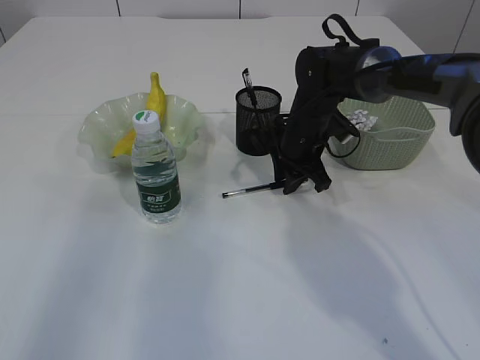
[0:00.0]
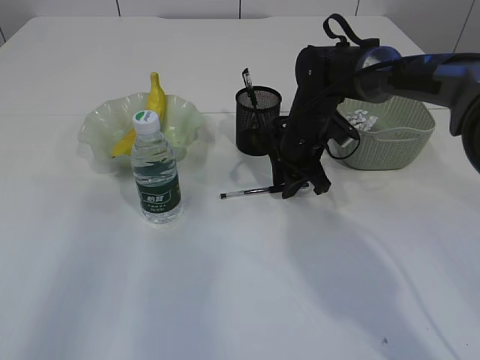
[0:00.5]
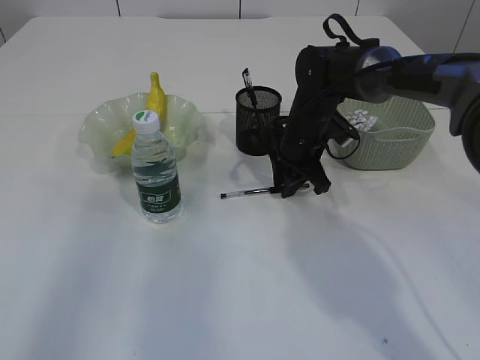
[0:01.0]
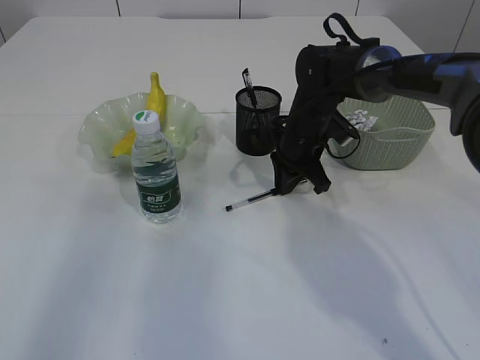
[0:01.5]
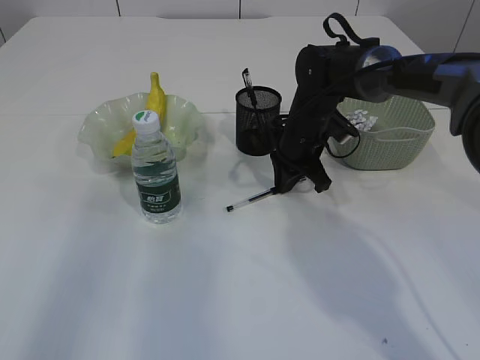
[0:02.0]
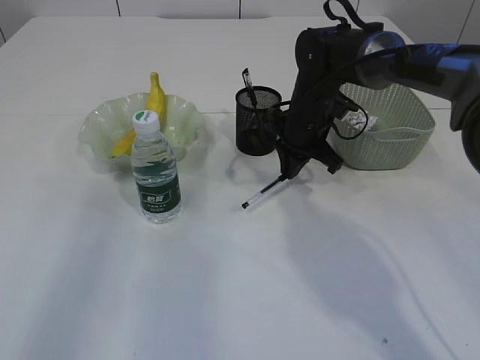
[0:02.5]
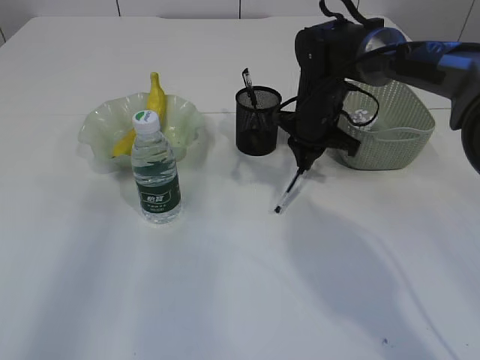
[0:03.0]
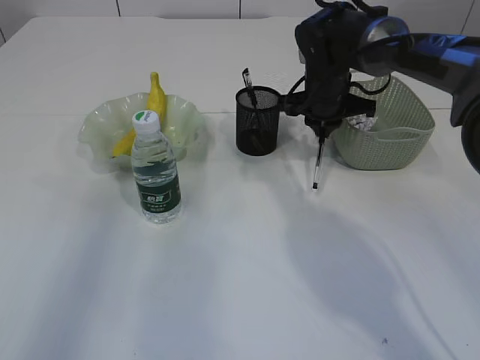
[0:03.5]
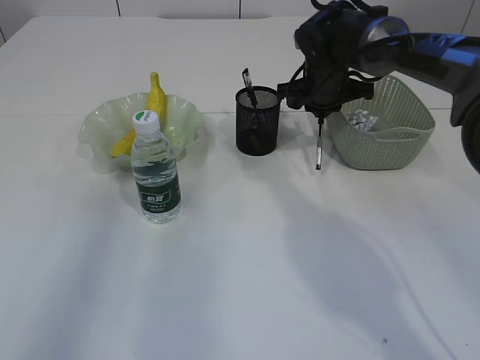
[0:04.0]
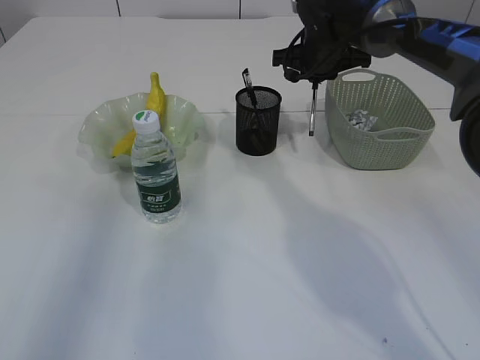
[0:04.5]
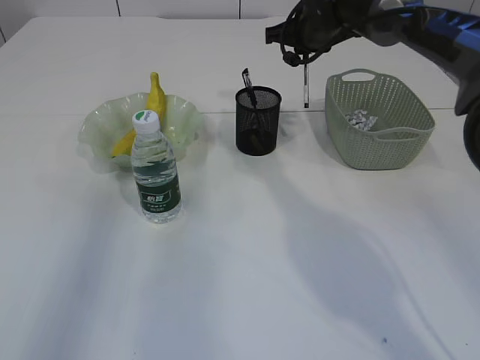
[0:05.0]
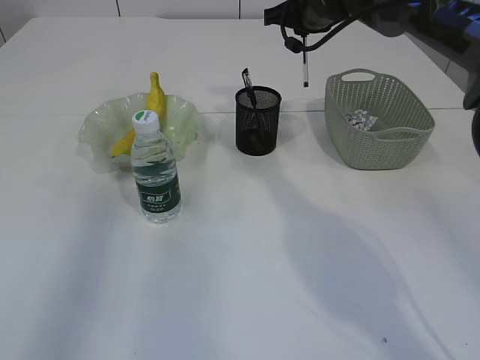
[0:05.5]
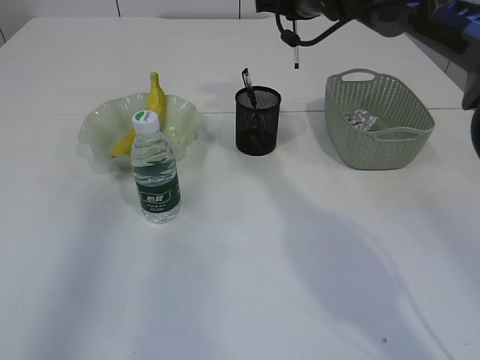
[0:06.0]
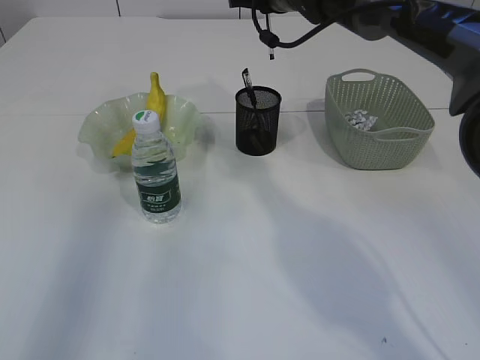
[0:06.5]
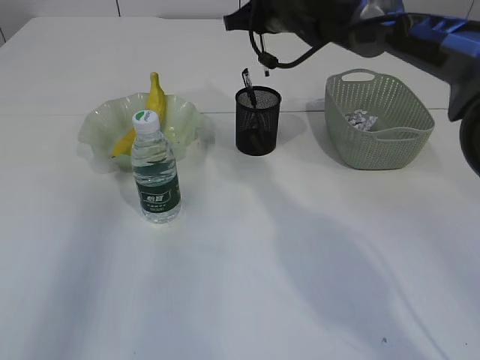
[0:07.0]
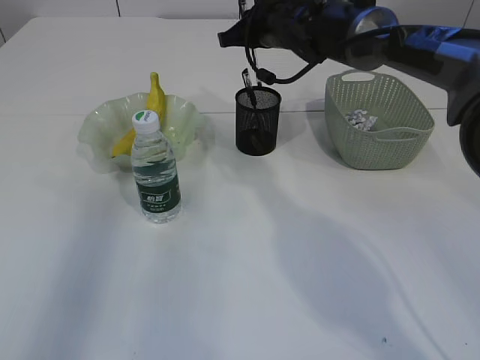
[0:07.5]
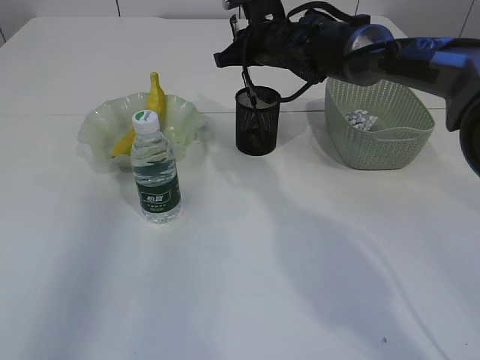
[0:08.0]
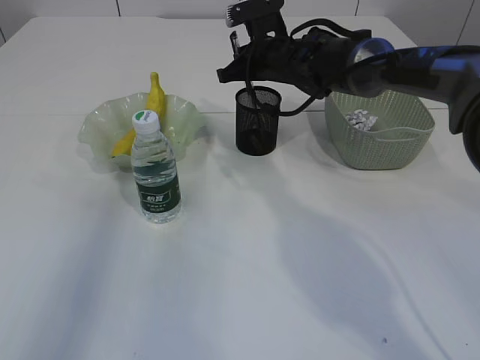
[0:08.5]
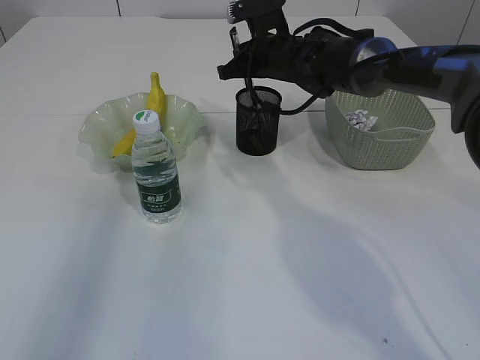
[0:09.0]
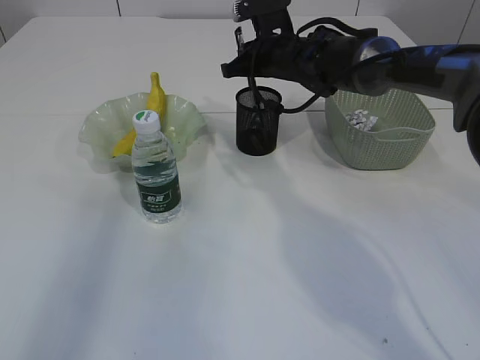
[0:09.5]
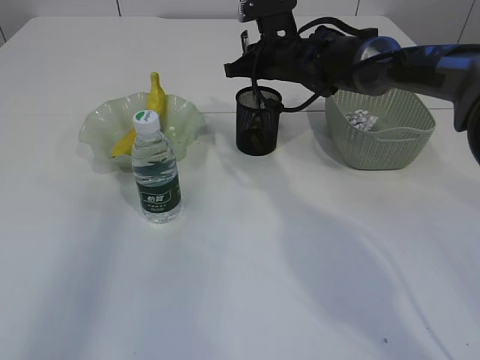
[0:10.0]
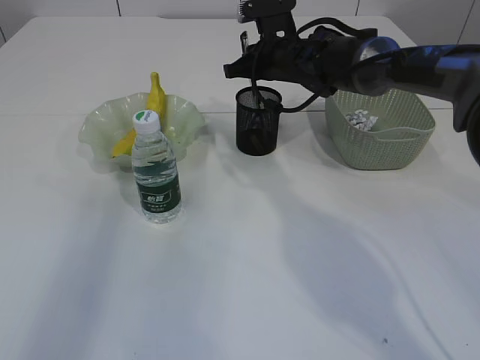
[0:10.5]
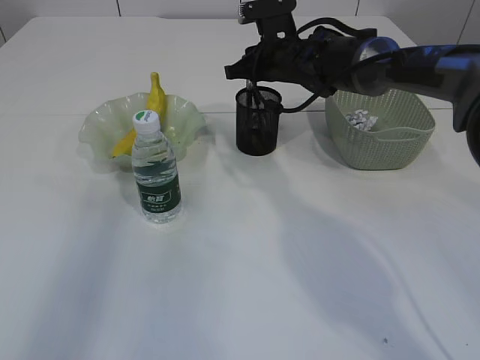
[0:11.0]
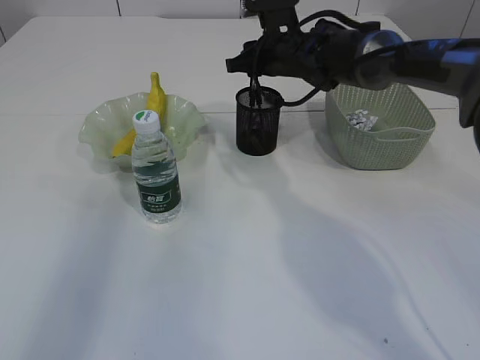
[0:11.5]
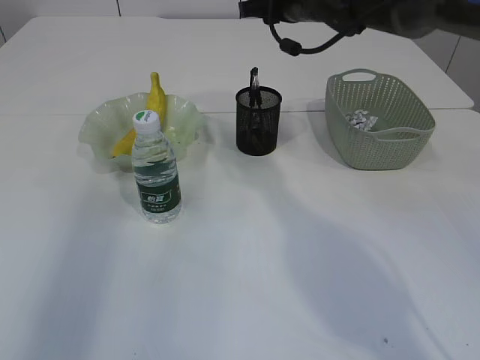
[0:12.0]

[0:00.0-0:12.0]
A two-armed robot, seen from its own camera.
Step, 0:00.0 to 0:04.0: Pick up the pen with right arm.
Step, 0:04.5 to 0:11.5: Place the pen into the pen holder.
0:00.0 to 0:02.0: Neither gripper changes place.
0:02.0 to 0:04.0: The right gripper moves upward, roughly 5 cm.
0:04.0 to 0:06.0: The right gripper shifts roughly 10 cm upward.
0:06.0 to 0:08.0: The right gripper travels downward and to the left by some 10 cm.
0:08.0 to 0:10.0: There are only small adjustments of the grippers.
0:10.0 to 0:12.0: The right gripper shifts some 10 cm upward, and opens its fingers.

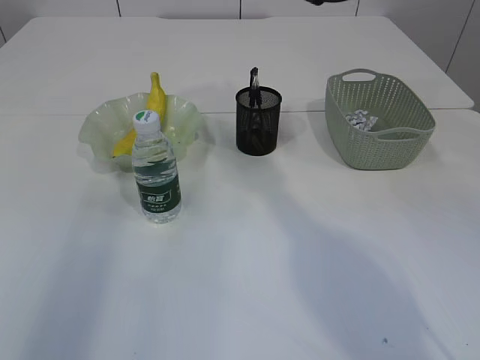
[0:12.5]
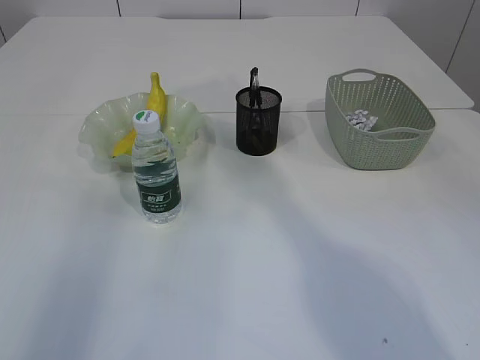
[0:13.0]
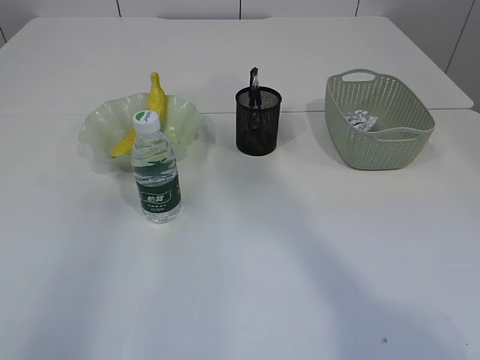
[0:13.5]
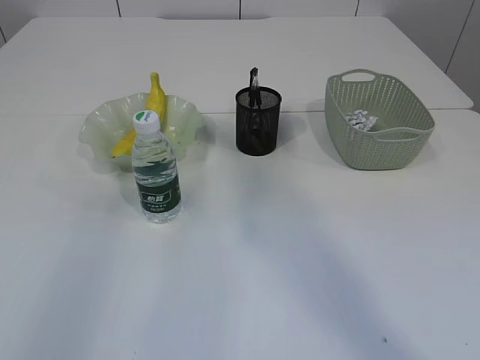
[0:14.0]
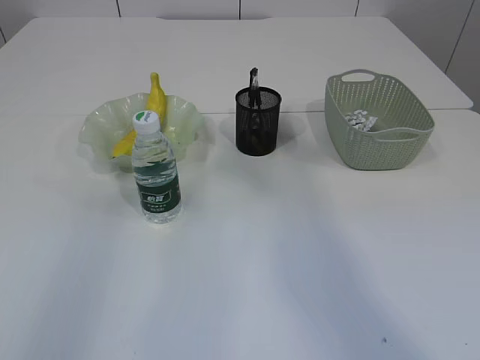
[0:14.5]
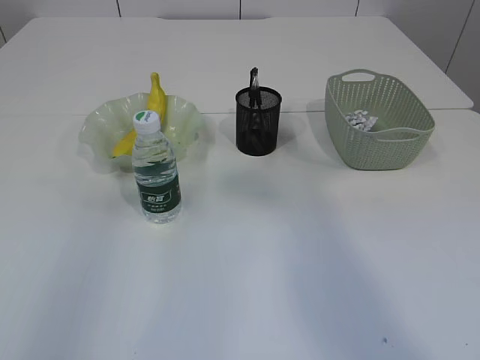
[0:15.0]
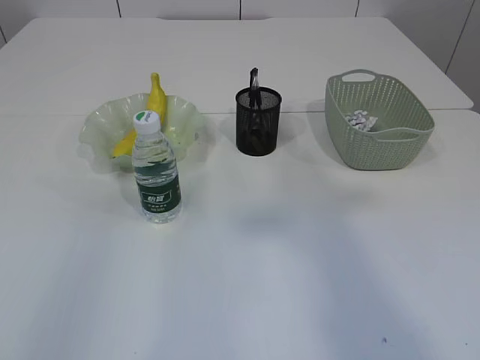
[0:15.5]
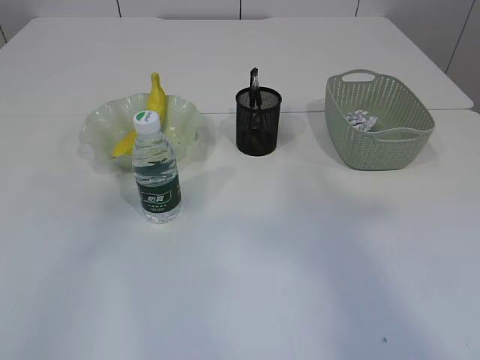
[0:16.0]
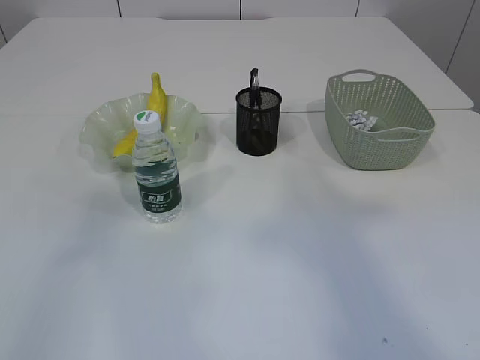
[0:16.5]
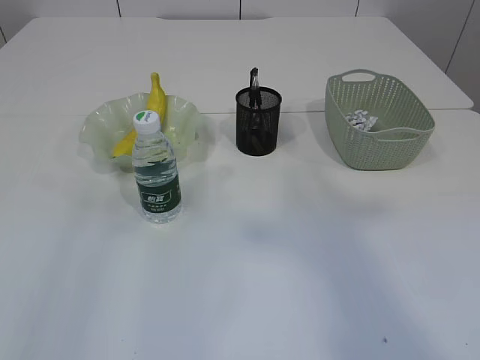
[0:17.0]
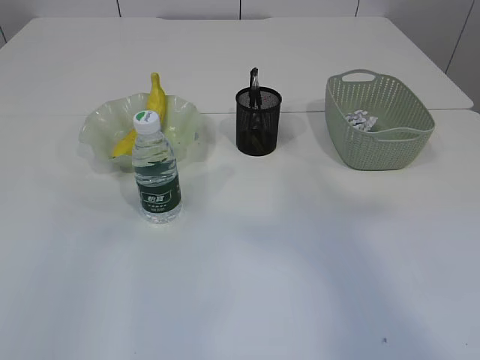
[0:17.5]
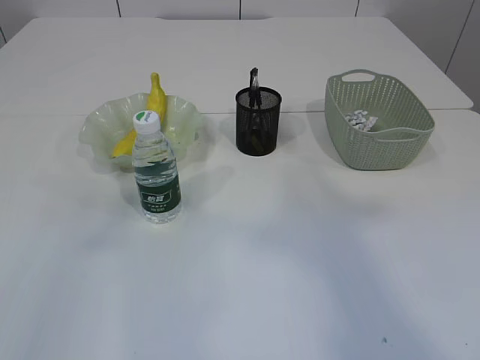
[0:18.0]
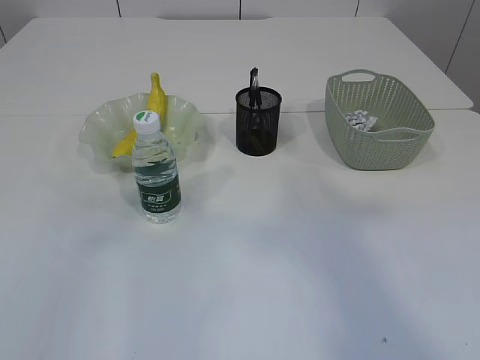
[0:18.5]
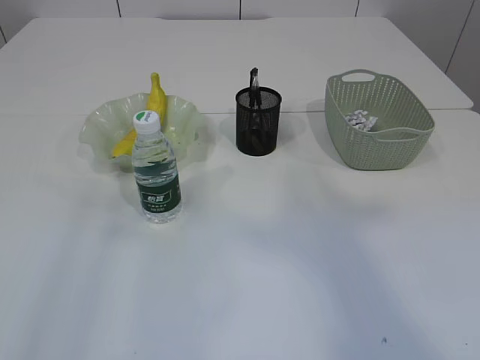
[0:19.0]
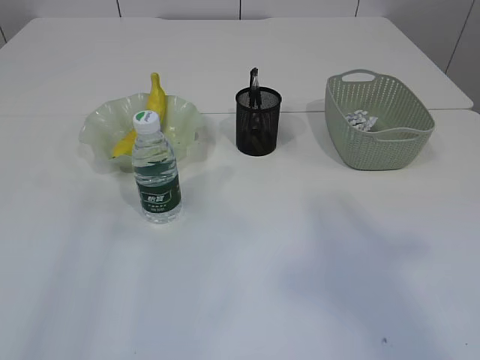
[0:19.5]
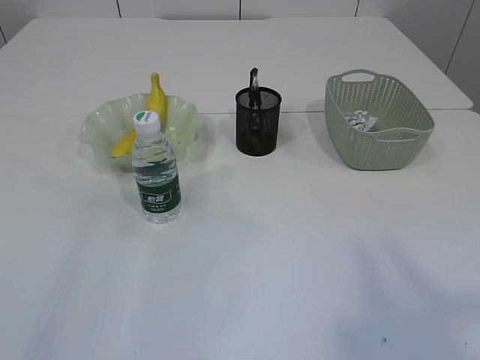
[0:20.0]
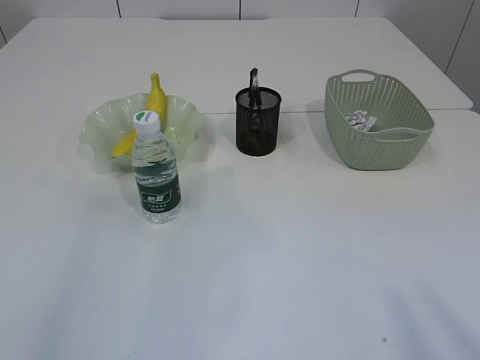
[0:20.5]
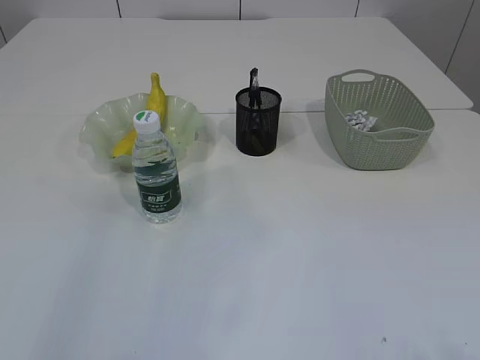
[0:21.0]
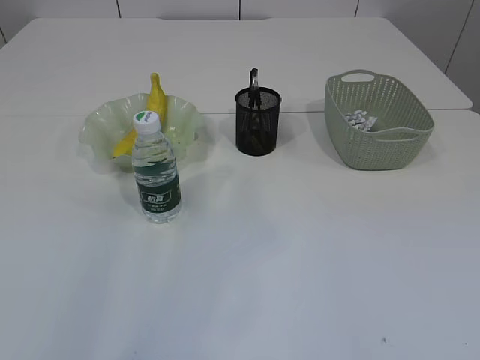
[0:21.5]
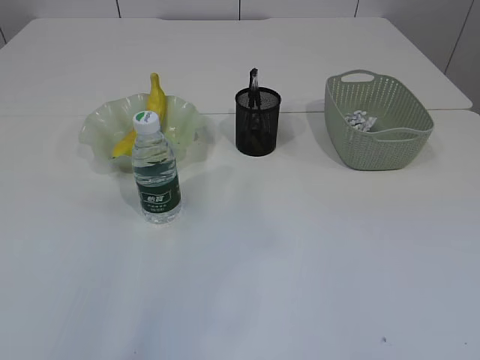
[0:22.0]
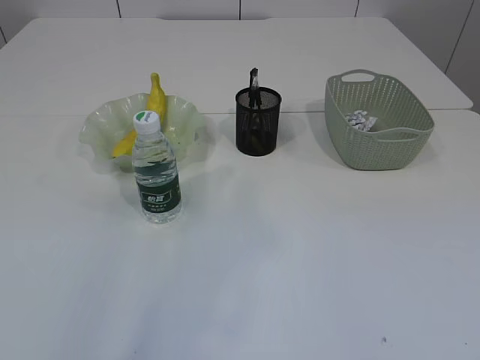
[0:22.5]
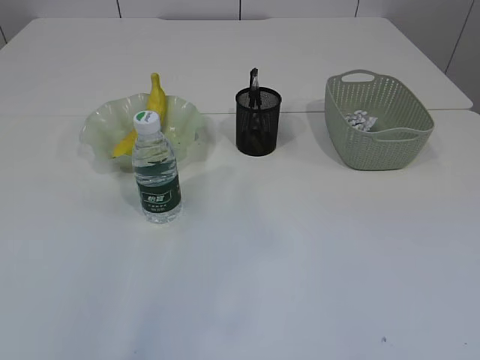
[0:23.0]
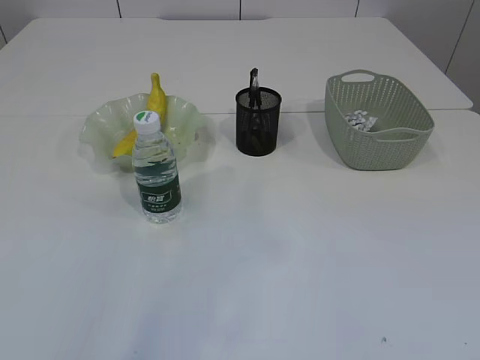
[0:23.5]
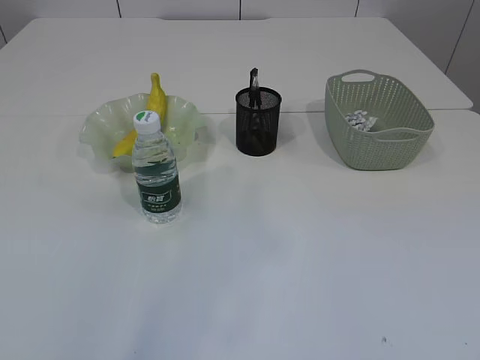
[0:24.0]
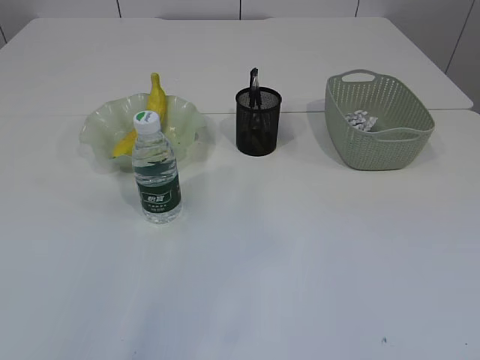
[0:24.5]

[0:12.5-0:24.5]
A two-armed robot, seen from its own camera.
0:12.5 to 0:14.5: The right gripper goes some 40 cm backward, upward and to the right.
0:14.5 to 0:16.5: The right gripper goes about 5 cm backward; the left gripper moves some 5 cm.

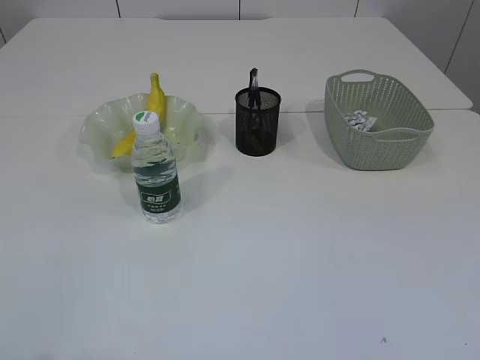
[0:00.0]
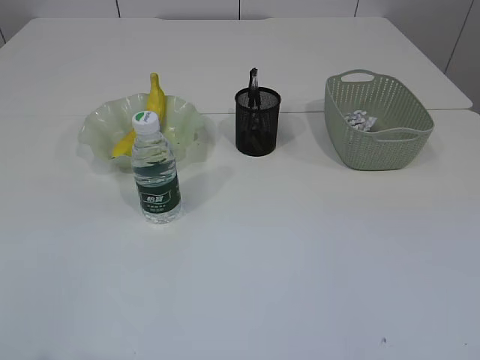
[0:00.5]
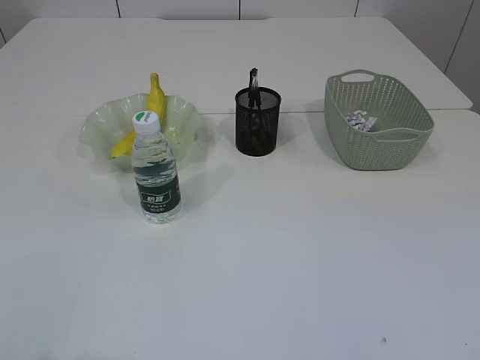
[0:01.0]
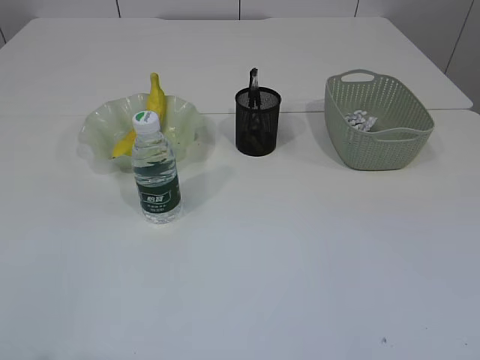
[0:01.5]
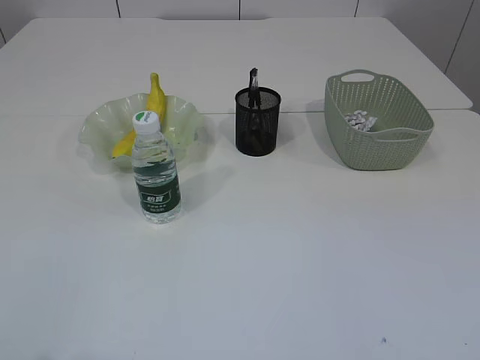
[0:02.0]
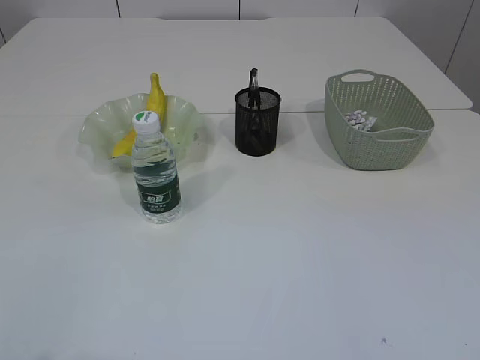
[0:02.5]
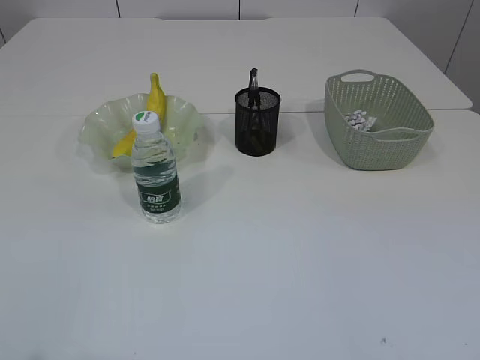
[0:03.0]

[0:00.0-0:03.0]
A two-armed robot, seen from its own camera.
0:00.0 to 0:01.5: The two grippers keep their place.
